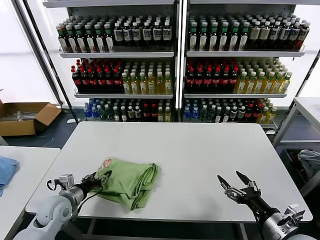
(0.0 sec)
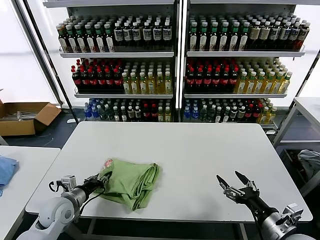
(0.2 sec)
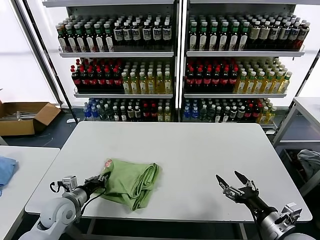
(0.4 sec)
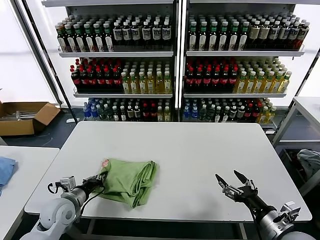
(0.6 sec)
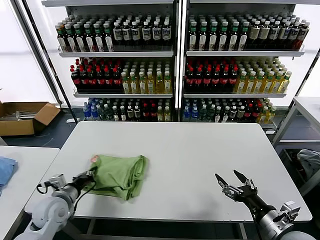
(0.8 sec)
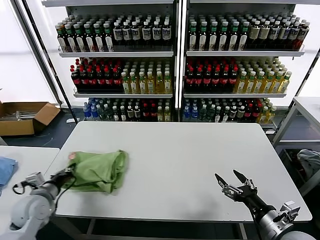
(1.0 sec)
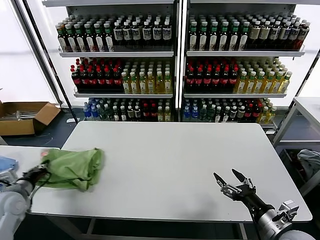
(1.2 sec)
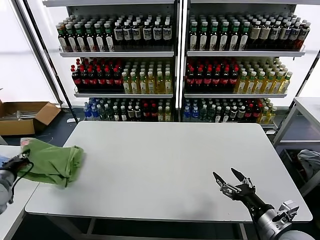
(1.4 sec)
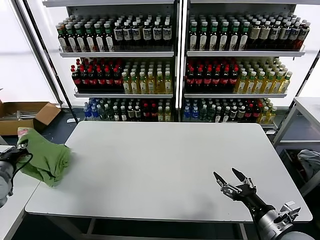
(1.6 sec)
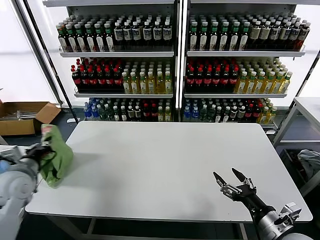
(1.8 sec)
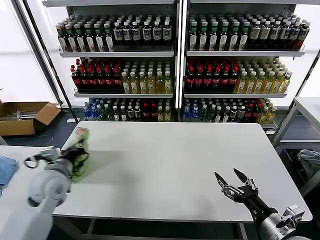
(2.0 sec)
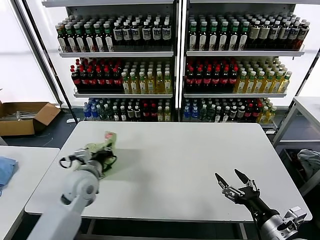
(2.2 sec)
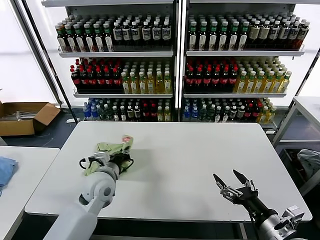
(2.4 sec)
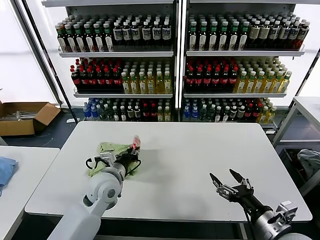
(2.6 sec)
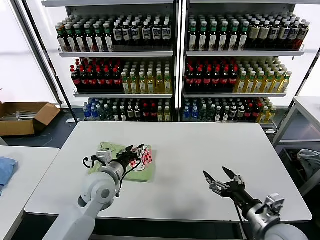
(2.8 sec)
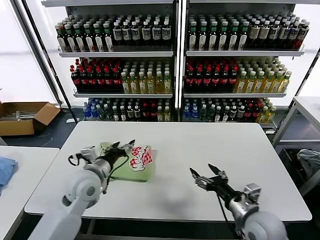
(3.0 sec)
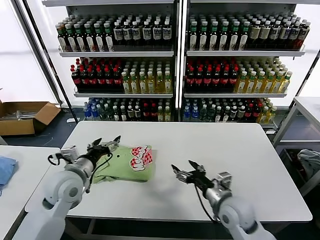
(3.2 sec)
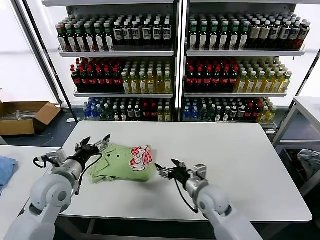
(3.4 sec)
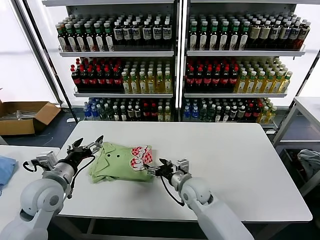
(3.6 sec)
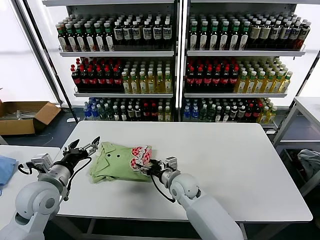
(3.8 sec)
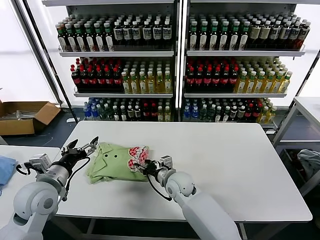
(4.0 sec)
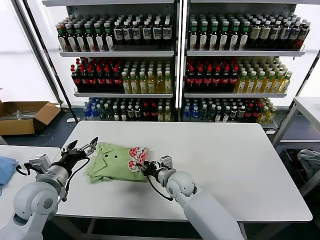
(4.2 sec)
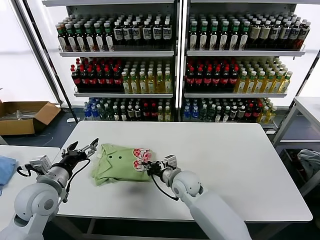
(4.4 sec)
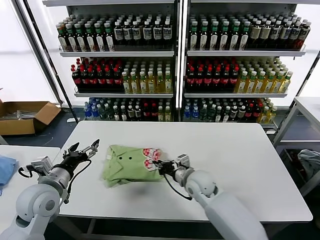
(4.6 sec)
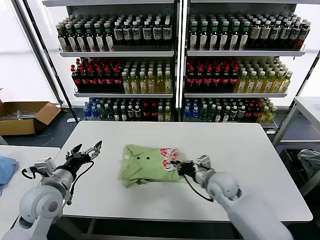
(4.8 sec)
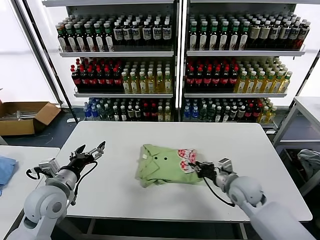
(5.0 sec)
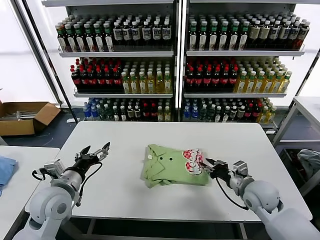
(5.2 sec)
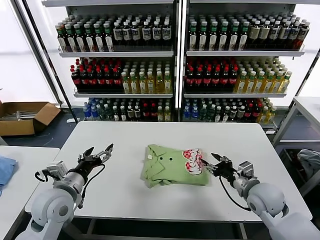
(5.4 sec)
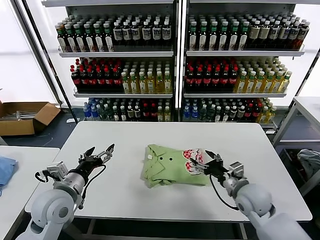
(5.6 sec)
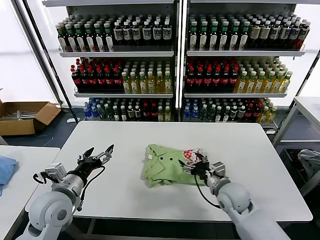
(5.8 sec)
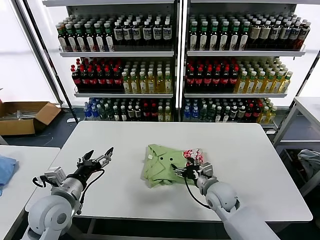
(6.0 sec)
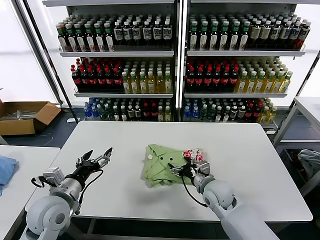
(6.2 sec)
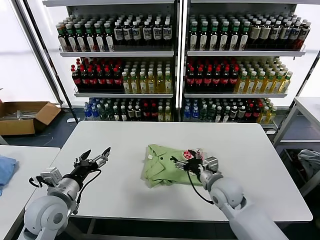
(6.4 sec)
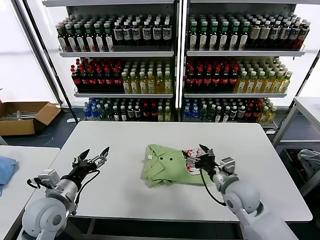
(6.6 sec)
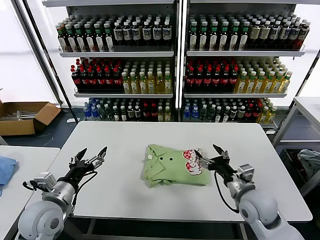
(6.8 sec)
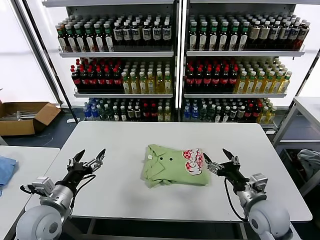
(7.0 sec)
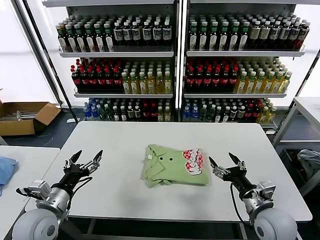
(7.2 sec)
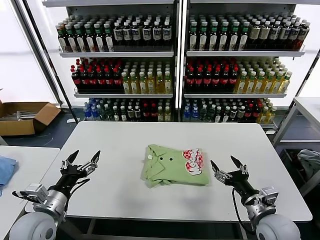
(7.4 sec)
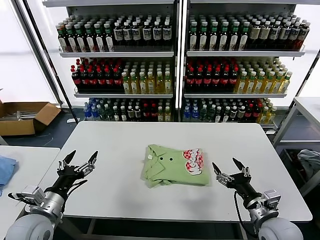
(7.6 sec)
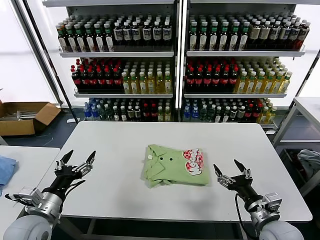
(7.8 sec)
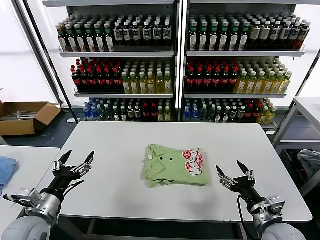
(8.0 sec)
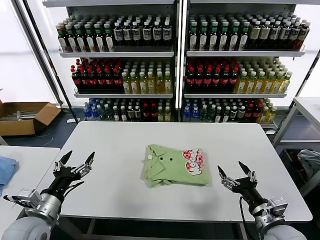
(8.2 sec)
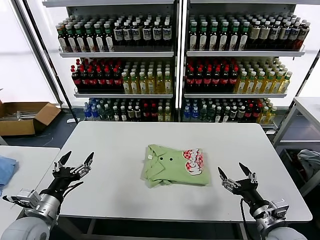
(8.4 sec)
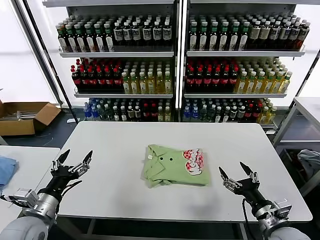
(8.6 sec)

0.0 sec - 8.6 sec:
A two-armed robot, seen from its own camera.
Task of the whole recording: fold and organize the clothes.
Step, 0.0 sec - 2.6 sec: Flip the folded clothes over with left gripper.
Step, 3.0 sec - 6.4 sec: Drag the clothes to the center of the table.
0.0 sec - 1.4 sec: The left gripper heads to the left and upward, covering about 20 cm, and closes up.
1.4 sec - 2.8 sec: The left gripper is displaced to the right by roughly 30 cm, and opens up.
2.8 sec - 4.4 sec: The right gripper goes approximately 30 cm to the left and forward, and closes up, while the left gripper travels to the left by approximately 15 cm, and opens.
4.4 sec - 5.8 sec: The right gripper is displaced to the right by about 15 cm, and opens its fingers.
5.8 sec - 7.2 sec: The left gripper shifts by some 5 cm. Meanwhile the right gripper is displaced backward and to the right by approximately 10 cm.
7.2 sec - 8.6 sec: The right gripper goes some 5 cm backward.
